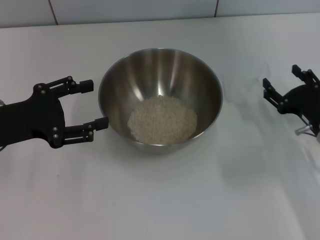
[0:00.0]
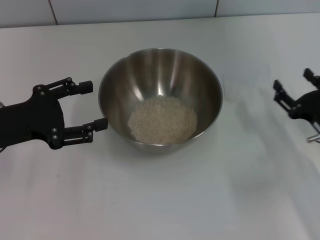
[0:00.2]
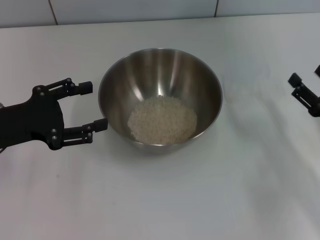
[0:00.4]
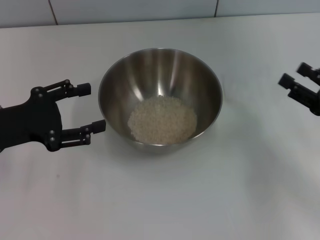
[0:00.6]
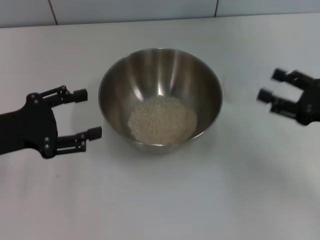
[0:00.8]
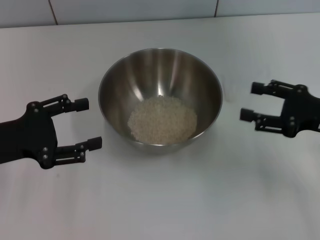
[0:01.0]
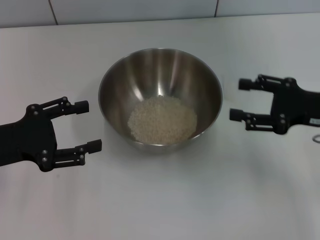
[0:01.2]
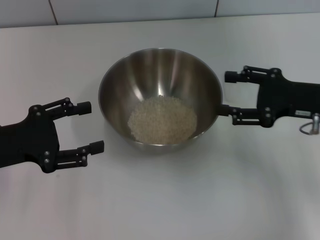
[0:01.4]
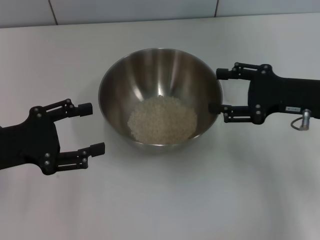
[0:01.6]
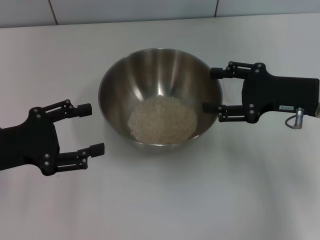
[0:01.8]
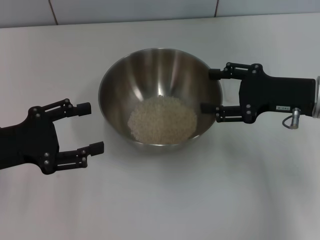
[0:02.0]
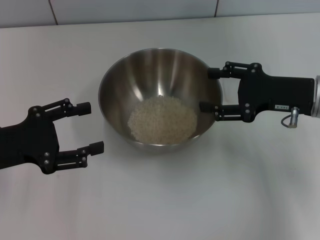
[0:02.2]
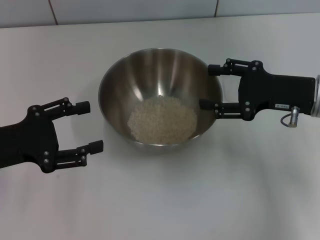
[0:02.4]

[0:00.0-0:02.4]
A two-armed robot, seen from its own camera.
Task of the whole recording: Place the bowl in the middle of the table with one hand and pour the rice from the grain cup into it with the other hand.
0:00.0 to 0:01.2: The right gripper travels upward by about 10 cm.
0:01.2 to 0:02.4: There are only small adjustments of the grippers.
